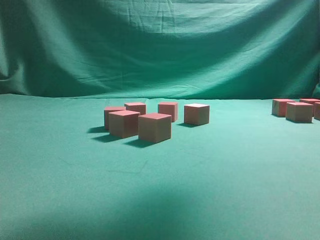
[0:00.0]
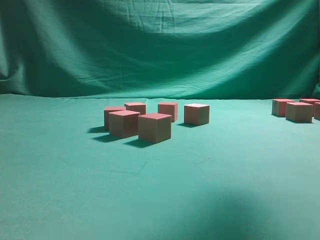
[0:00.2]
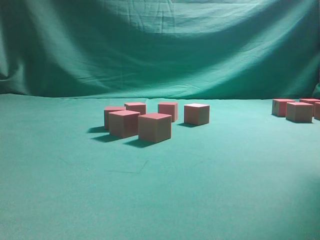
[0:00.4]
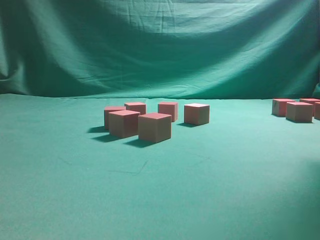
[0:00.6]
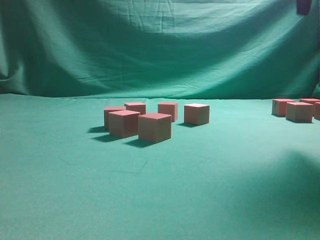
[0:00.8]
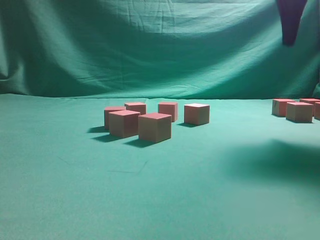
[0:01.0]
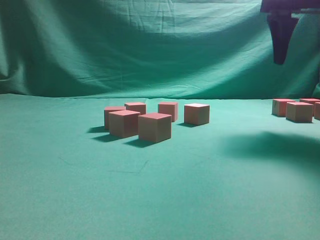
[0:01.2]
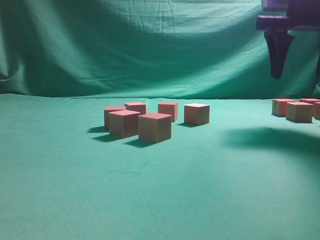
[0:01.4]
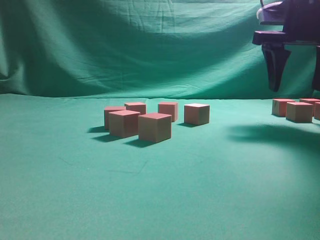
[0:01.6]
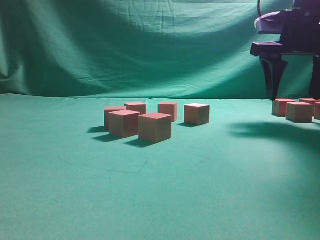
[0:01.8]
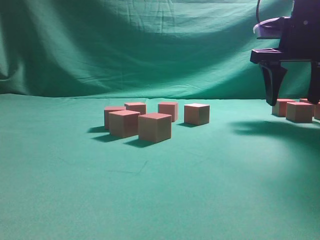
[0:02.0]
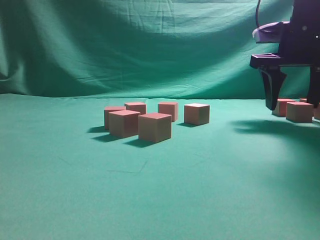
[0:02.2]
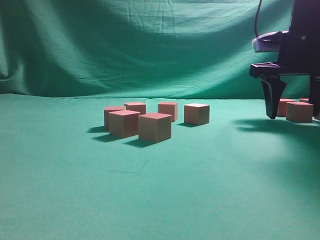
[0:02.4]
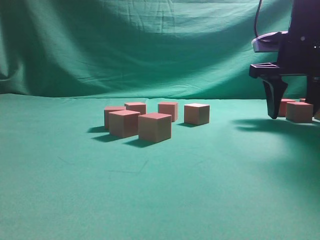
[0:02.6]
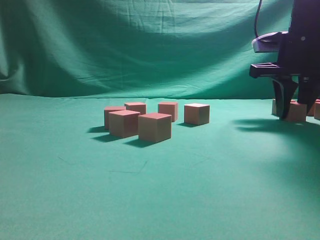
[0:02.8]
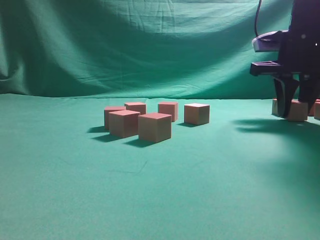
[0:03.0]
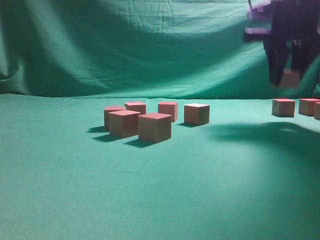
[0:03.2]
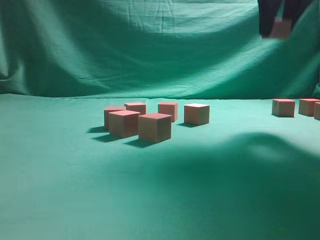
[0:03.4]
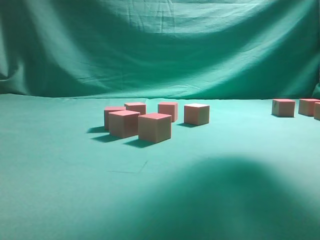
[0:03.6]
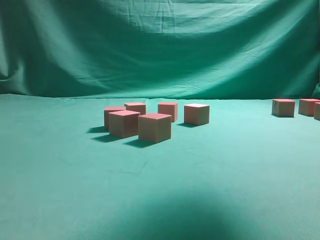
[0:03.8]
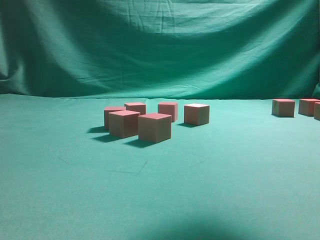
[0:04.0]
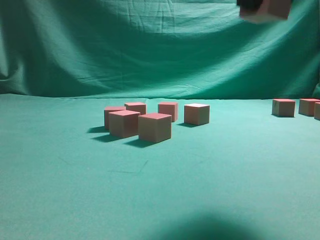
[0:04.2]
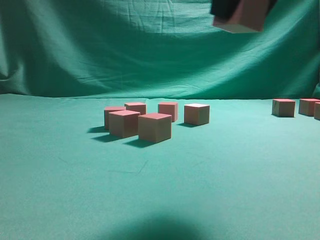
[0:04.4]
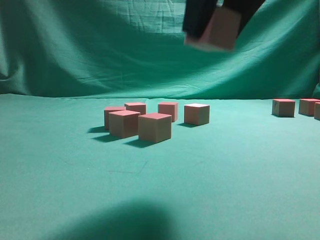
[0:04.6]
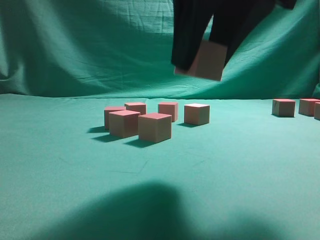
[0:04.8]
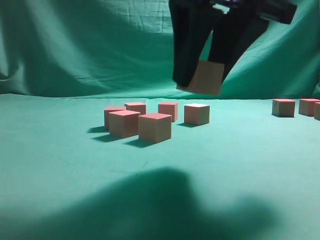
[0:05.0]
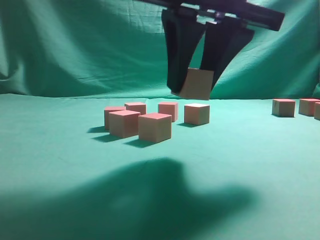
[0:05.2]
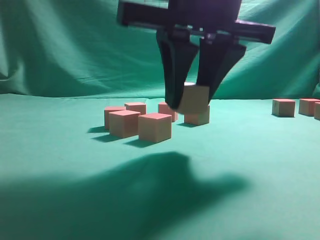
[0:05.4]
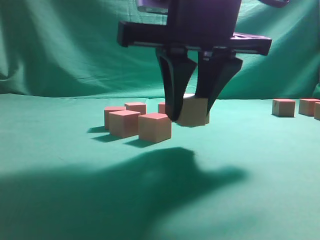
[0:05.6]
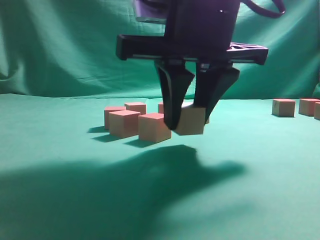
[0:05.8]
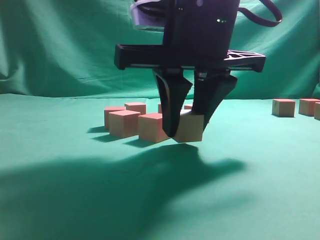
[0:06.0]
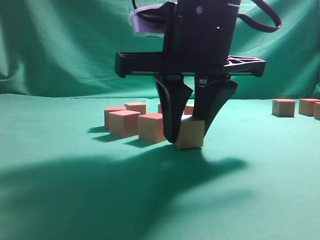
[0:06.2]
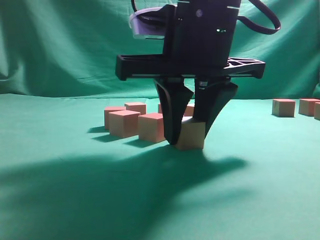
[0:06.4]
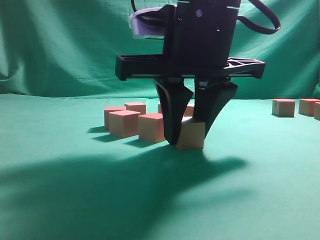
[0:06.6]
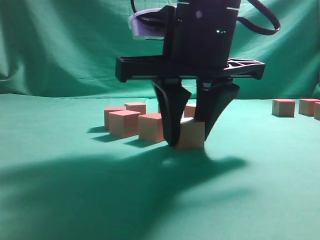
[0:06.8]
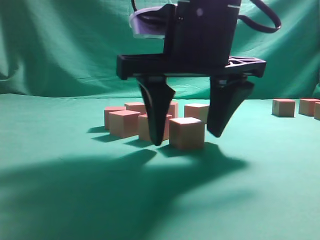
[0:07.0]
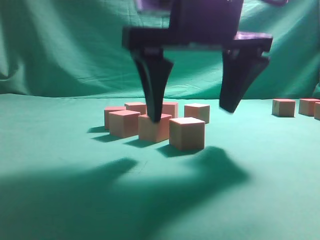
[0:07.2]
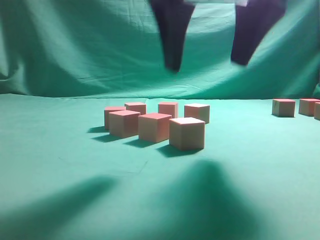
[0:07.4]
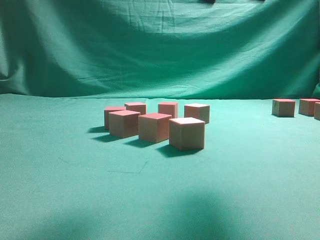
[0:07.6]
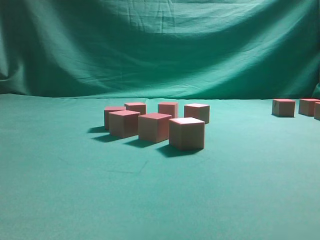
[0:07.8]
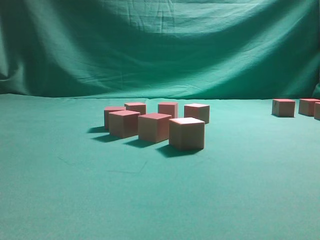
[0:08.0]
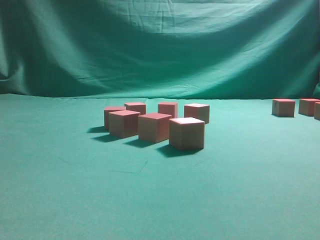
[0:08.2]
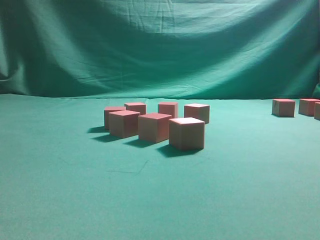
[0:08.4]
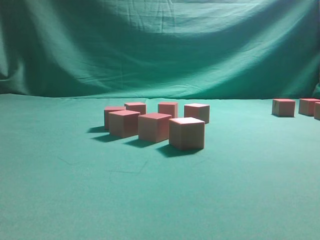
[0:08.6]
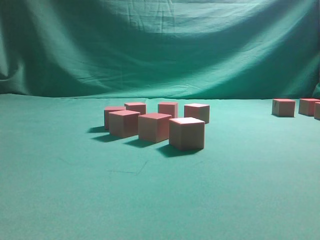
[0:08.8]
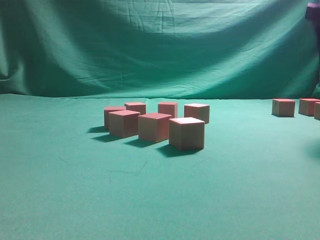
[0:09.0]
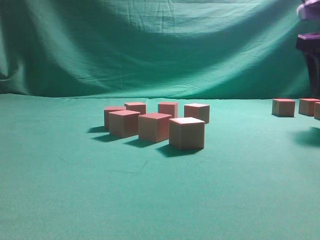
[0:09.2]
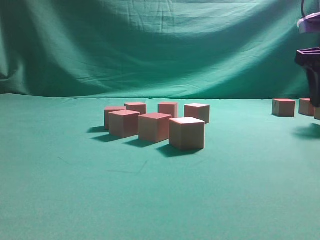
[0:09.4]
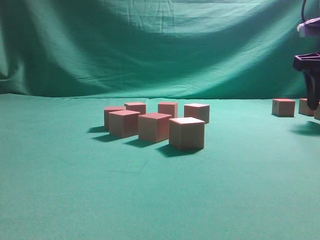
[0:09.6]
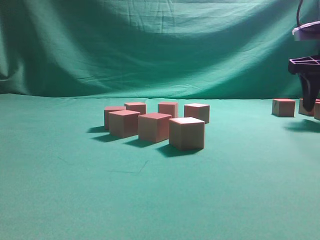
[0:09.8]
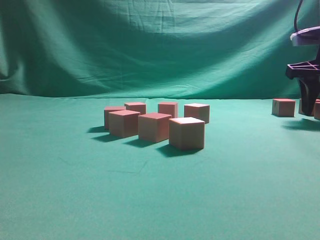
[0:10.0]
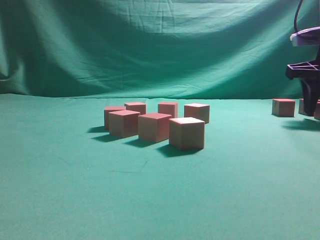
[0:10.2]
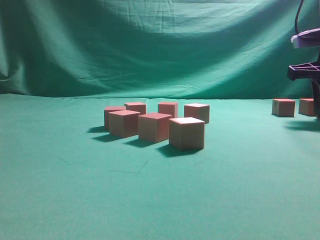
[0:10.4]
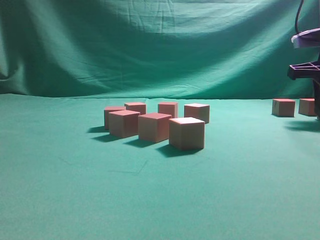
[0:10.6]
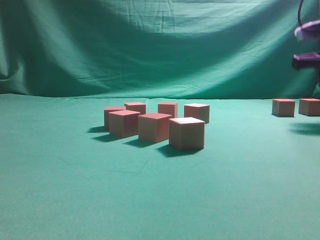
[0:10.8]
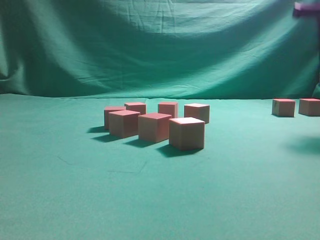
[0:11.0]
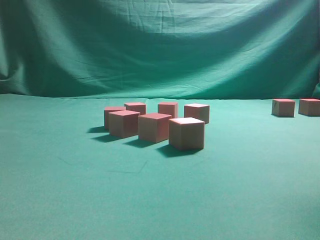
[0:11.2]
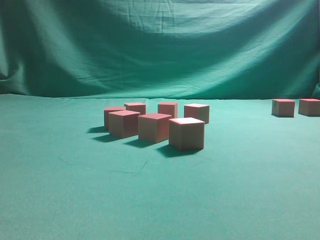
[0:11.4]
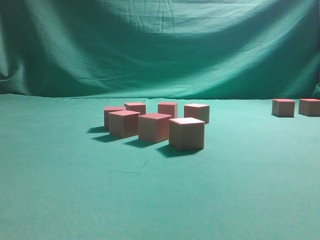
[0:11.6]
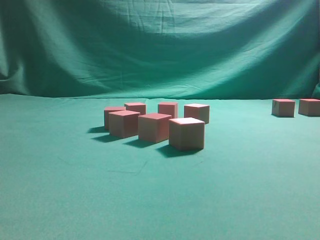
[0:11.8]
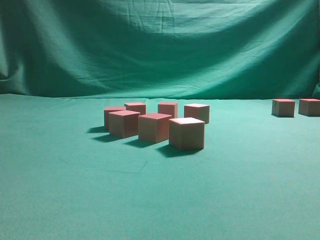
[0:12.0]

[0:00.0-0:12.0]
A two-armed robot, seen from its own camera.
Task of the whole recording: pick up the multiple cubes in two columns one by one and place them in another position on the table.
Step, 0.0 to 3.0 s: Pick up the block on the table.
Step, 3.2 to 7.4 s: Place the block at the correct position to assemble the letter S.
Step, 7.6 to 10.8 s: Pick up the block on the table.
0.0 to 1.6 s: The right gripper moves to the right, forward and downward, roughly 25 cm.
1.6 to 3.0 s: The right gripper closes up.
3.0 to 4.4 s: The right gripper moves backward, to the left and upward, approximately 25 cm.
4.4 to 6.0 s: The right gripper goes roughly 15 cm downward, to the left and forward.
6.0 to 7.6 s: The right gripper moves upward, approximately 10 cm, and opens.
7.6 to 9.0 s: The right gripper shifts some 20 cm to the right and forward.
9.0 to 10.4 s: The right gripper travels downward and forward by about 10 cm, and closes up.
10.4 to 12.0 s: The right gripper travels backward, upward and to the left by about 30 cm.

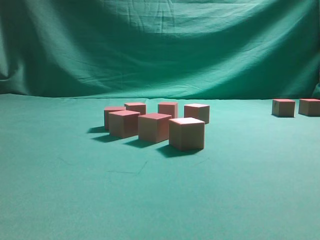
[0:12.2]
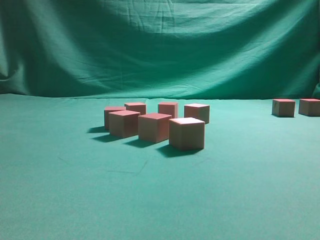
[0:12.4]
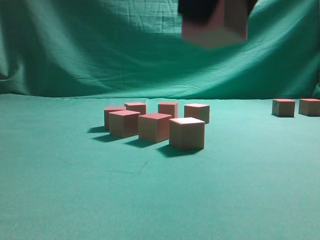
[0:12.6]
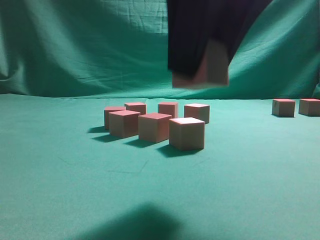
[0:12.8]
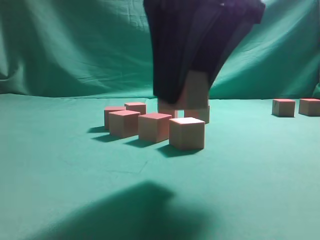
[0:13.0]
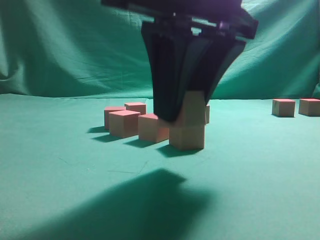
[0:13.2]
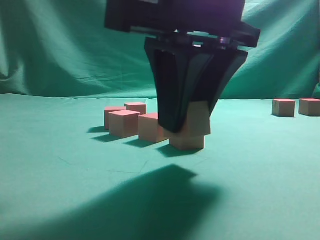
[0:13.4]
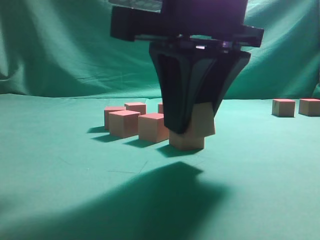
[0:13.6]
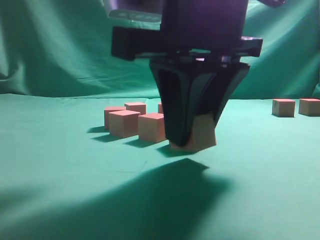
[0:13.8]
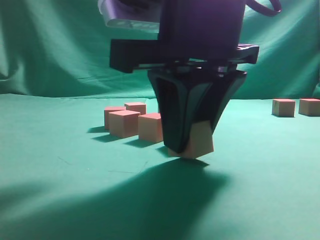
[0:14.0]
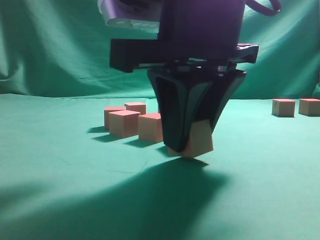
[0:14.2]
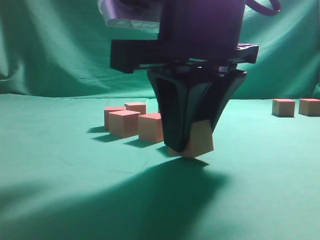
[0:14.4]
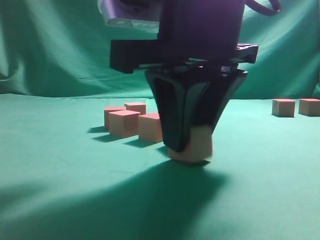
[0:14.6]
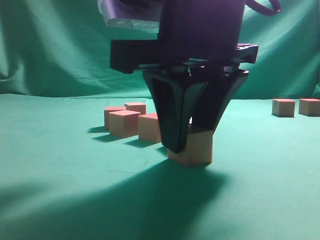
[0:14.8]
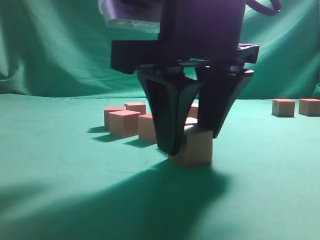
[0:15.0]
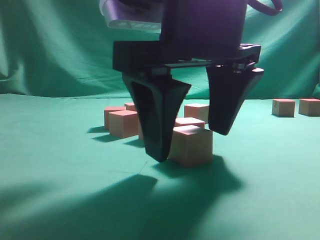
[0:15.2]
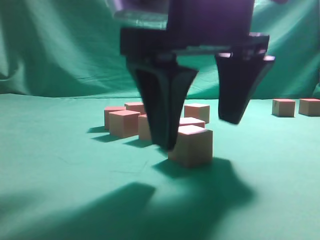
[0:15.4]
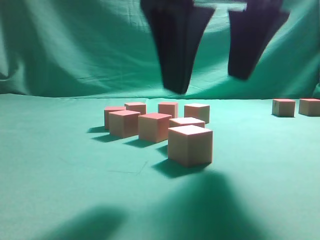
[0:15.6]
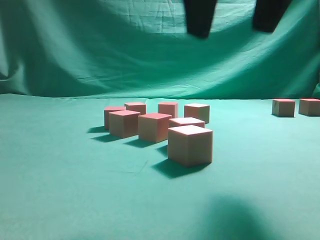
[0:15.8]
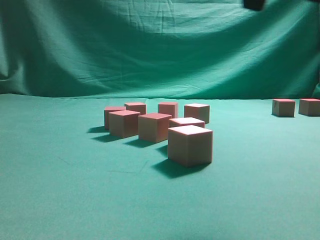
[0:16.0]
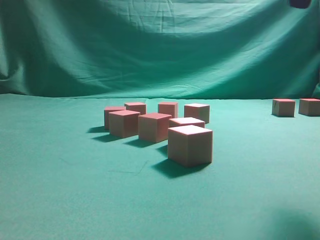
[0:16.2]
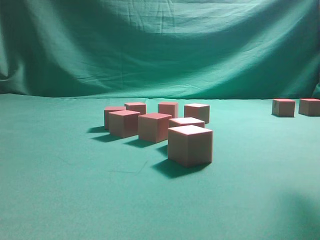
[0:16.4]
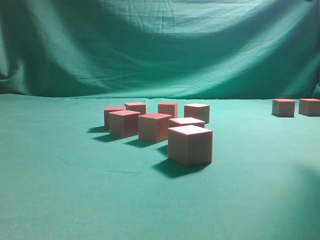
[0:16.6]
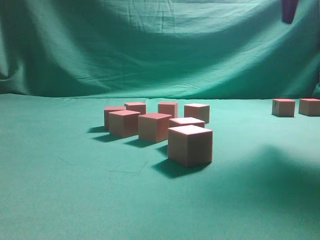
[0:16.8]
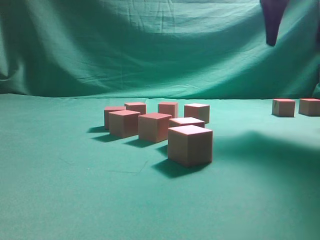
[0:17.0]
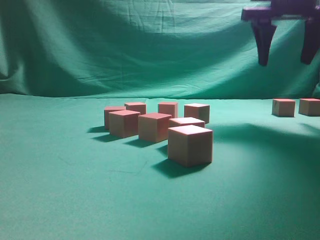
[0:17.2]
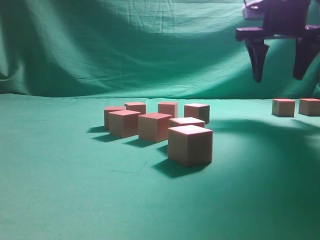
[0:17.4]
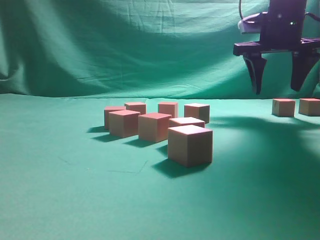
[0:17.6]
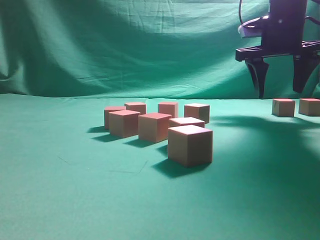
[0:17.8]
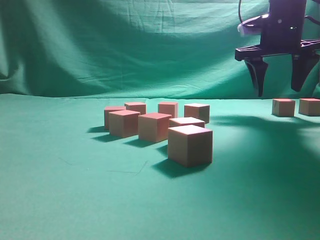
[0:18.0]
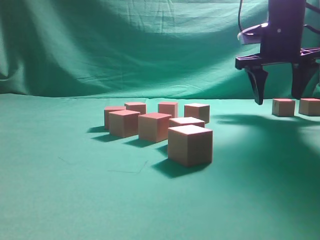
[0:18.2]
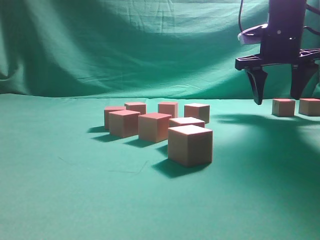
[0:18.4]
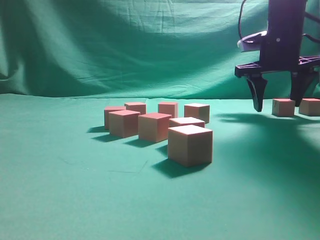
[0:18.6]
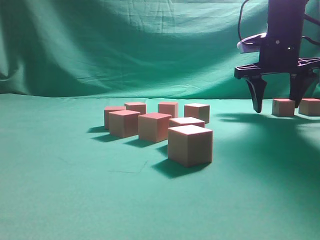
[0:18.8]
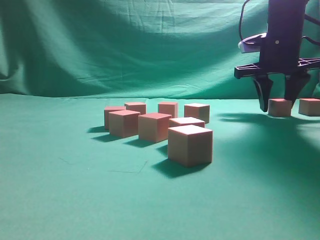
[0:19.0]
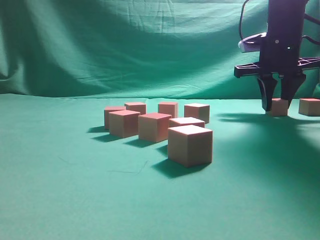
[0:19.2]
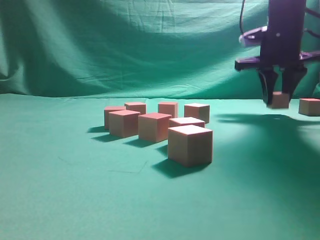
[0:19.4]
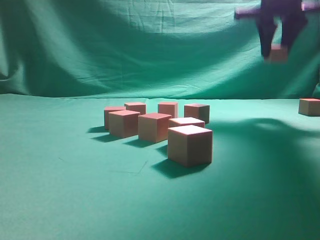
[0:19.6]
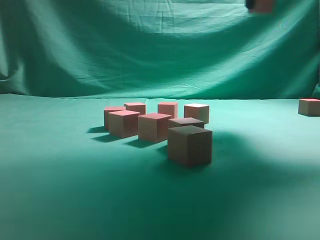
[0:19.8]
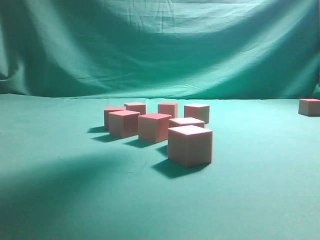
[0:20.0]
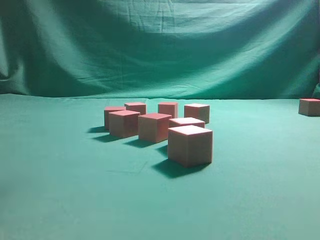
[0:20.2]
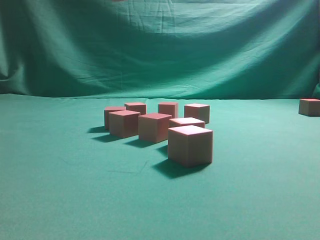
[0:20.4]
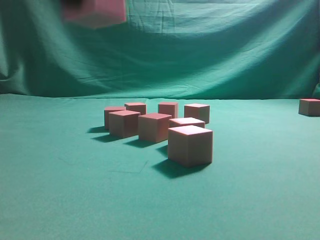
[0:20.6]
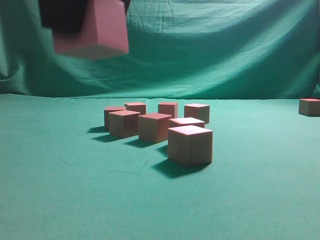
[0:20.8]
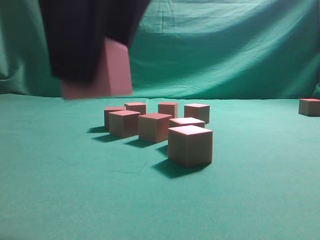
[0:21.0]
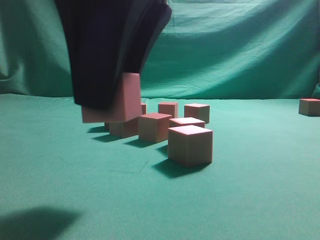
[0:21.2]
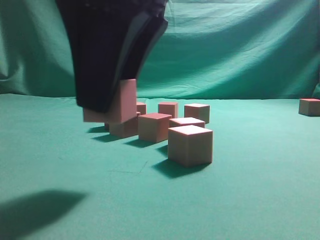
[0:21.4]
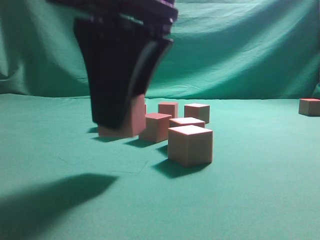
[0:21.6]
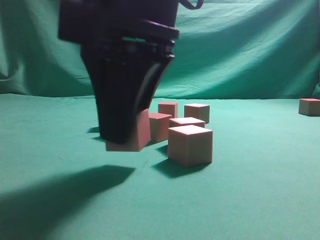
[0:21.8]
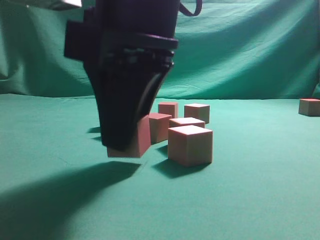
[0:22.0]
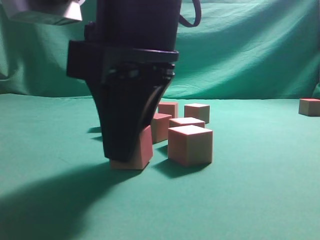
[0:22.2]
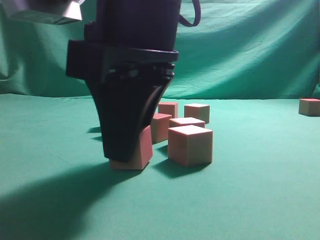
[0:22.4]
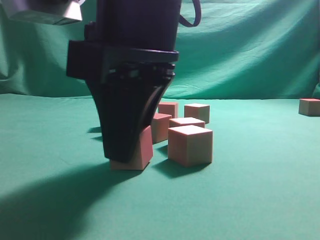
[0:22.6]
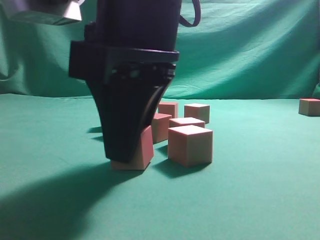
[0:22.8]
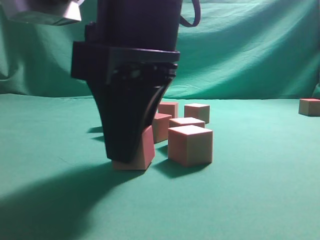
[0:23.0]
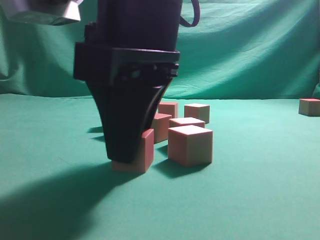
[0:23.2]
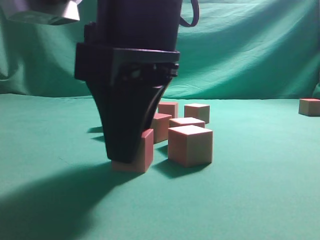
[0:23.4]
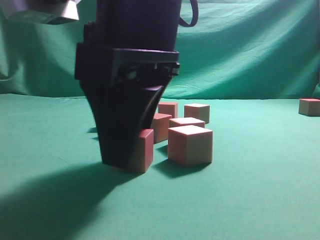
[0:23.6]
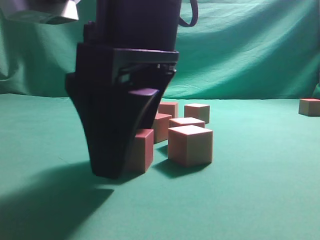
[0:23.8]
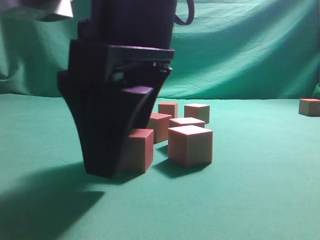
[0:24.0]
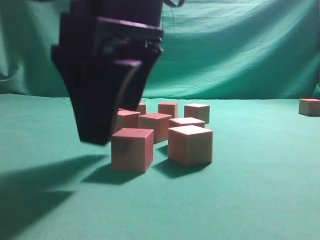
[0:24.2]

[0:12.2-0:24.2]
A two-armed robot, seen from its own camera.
Task of the whole recording: pick up the multiple cubes in two columns one by one and place them in another position on the table.
Step, 12.2 to 15.6 s: Place the block at the correct position to assemble the letter S.
Step, 15.8 to 19.4 s: Pick up the block on the table.
12.2 to 13.8 s: The right gripper is displaced downward, to the left and forward by roughly 15 cm.
13.8 to 15.2 s: The right gripper opens.
15.2 to 16.6 s: The right gripper travels to the right and upward by some 25 cm.
16.6 to 18.2 s: The right gripper shifts approximately 20 cm forward and downward.
18.2 to 19.8 s: The right gripper shifts approximately 15 cm upward and backward, and closes its fingers.
19.8 to 21.2 s: The right gripper goes roughly 30 cm backward, to the left and downward.
21.2 to 22.6 s: The right gripper ends up some 5 cm from where it was.
22.6 to 24.2 s: The right gripper opens.
